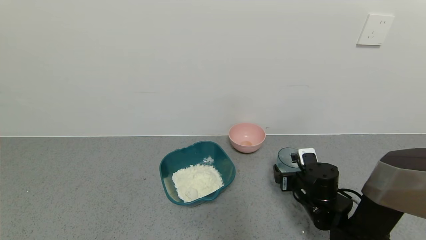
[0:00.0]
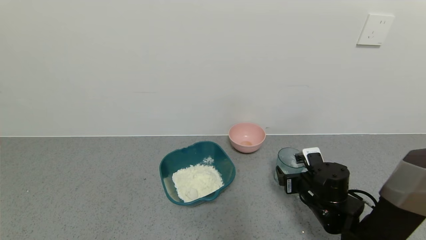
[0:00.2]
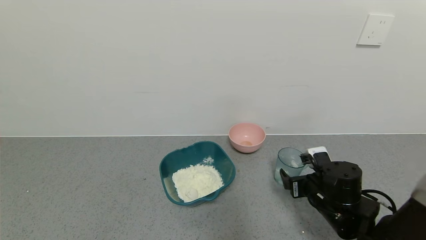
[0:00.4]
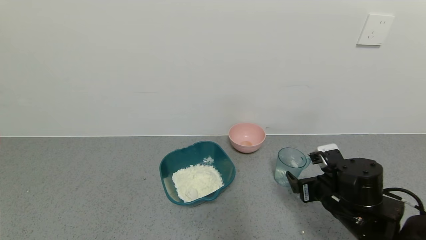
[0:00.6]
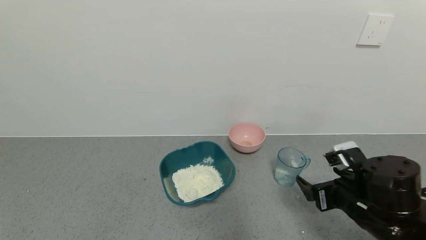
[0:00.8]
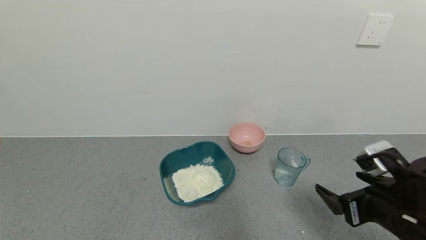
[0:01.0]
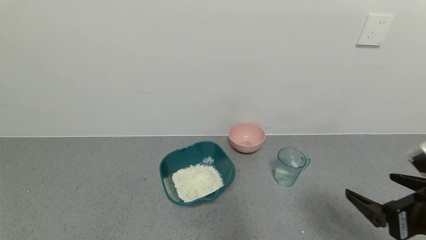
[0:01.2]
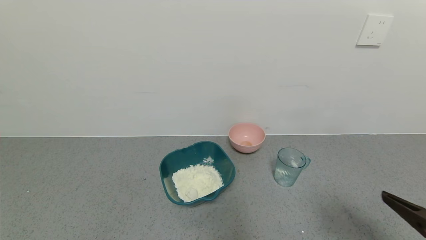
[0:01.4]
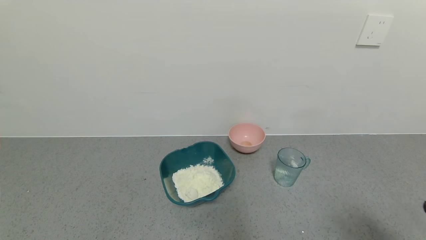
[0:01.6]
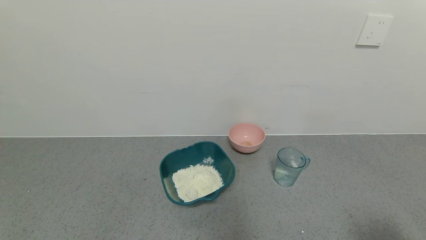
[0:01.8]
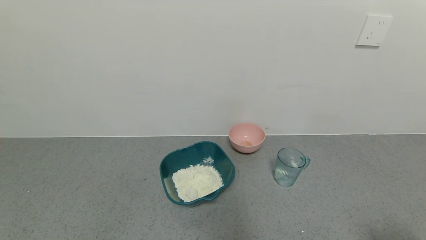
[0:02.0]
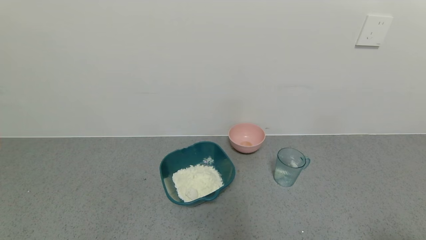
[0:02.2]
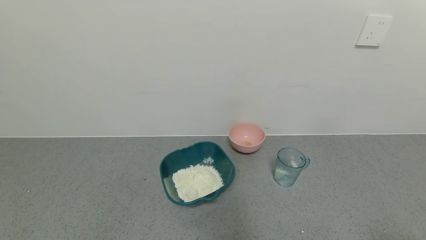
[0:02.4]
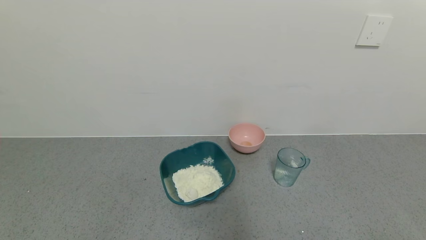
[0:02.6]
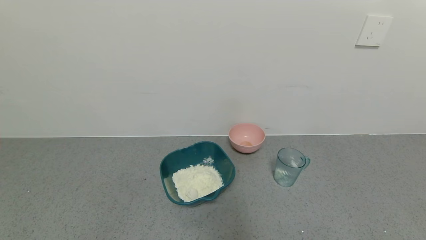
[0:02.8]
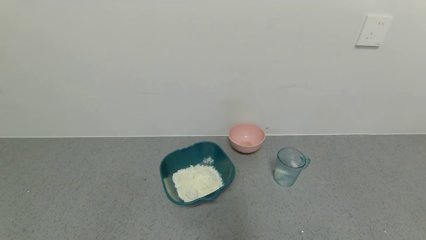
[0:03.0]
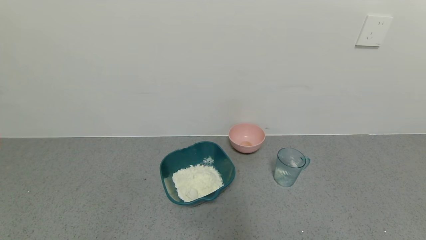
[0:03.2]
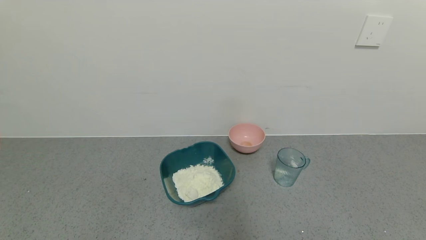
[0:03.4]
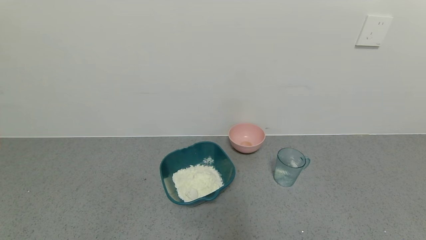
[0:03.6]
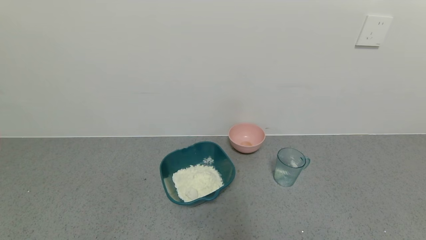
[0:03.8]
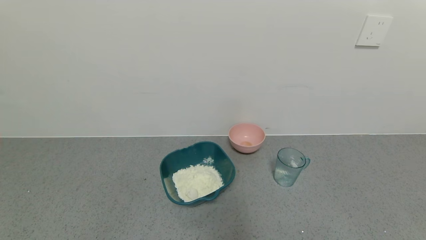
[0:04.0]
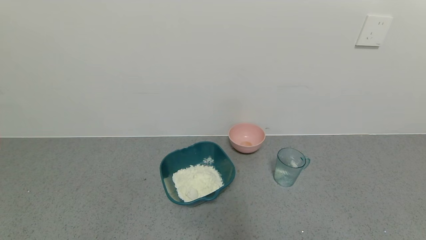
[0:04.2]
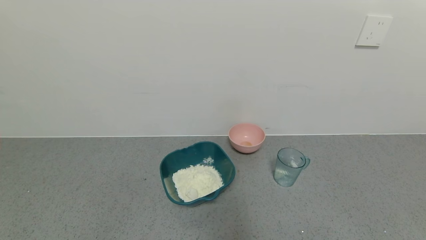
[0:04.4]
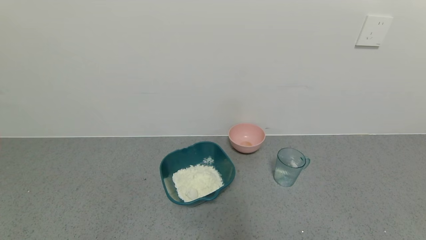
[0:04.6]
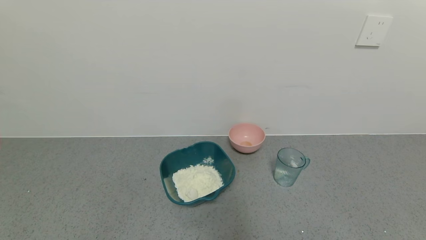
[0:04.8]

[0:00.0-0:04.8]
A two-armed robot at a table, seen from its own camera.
Task of the whole recording: use a gripper to pick up the cup and pour the powder into a bowl or tray.
0:00.0 to 0:01.6: The right gripper travels backward, upward and to the right by some 35 cm.
0:01.6 to 0:03.2: The right gripper heads backward and downward, covering approximately 15 cm.
